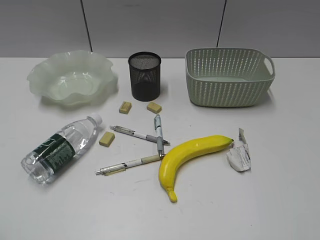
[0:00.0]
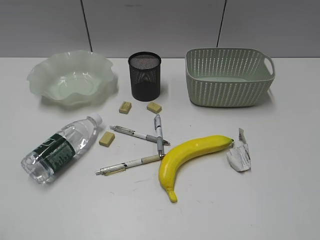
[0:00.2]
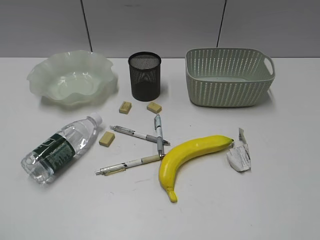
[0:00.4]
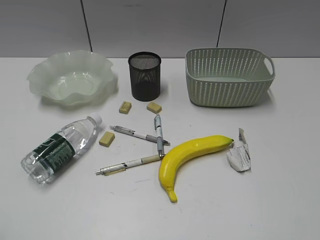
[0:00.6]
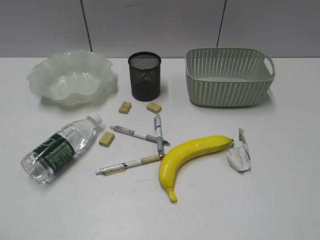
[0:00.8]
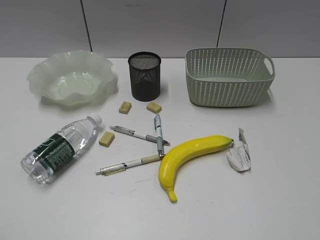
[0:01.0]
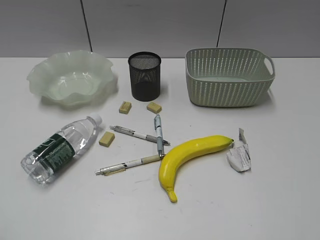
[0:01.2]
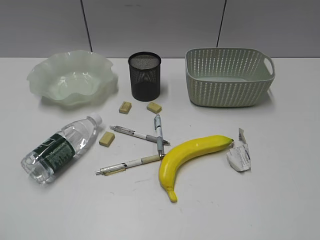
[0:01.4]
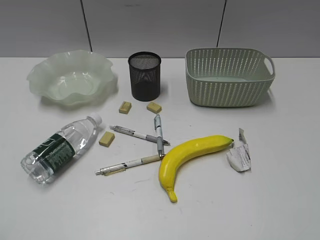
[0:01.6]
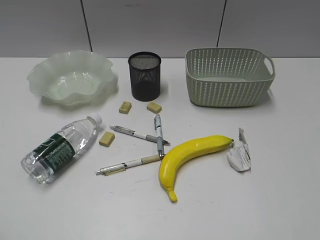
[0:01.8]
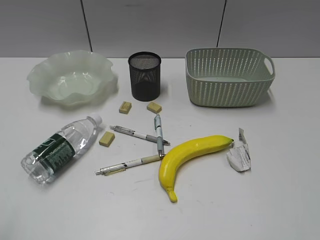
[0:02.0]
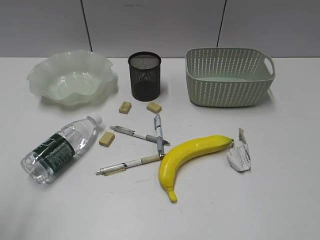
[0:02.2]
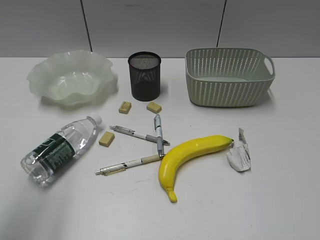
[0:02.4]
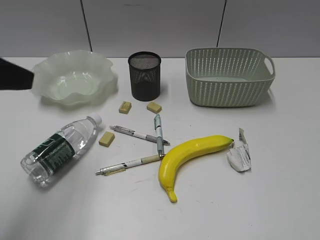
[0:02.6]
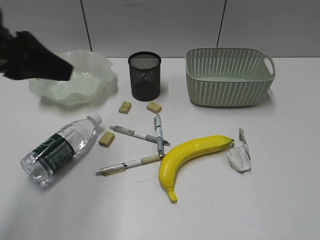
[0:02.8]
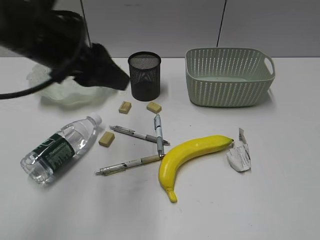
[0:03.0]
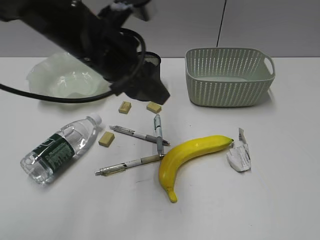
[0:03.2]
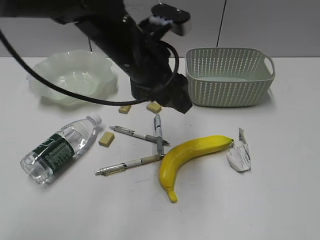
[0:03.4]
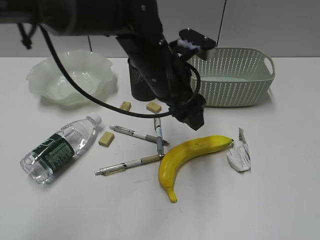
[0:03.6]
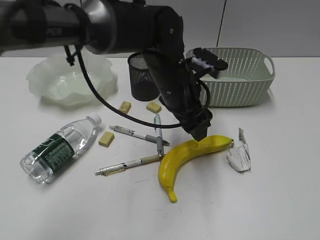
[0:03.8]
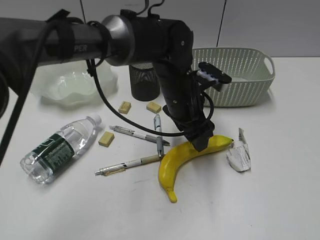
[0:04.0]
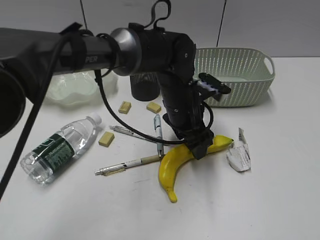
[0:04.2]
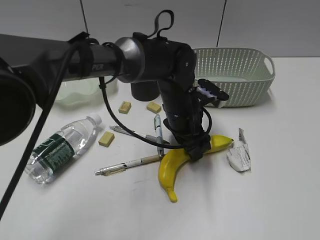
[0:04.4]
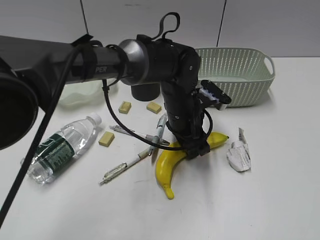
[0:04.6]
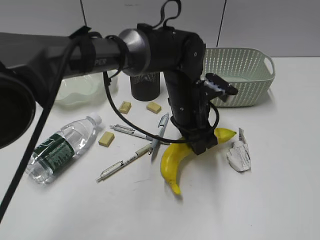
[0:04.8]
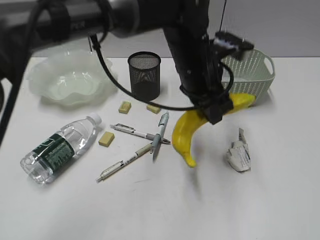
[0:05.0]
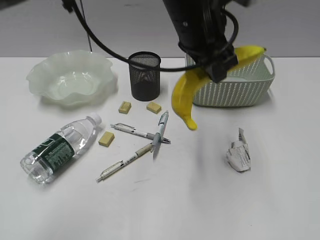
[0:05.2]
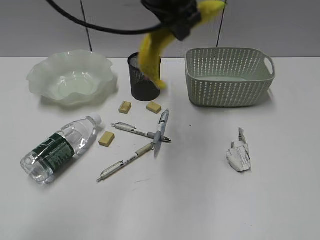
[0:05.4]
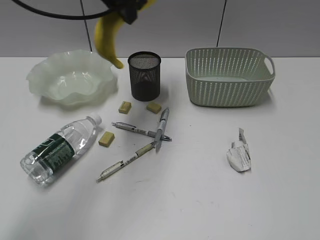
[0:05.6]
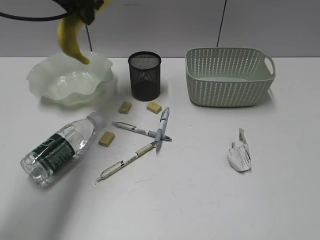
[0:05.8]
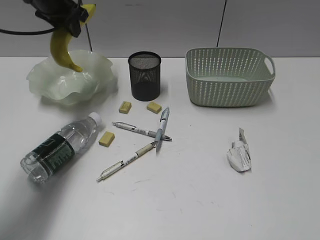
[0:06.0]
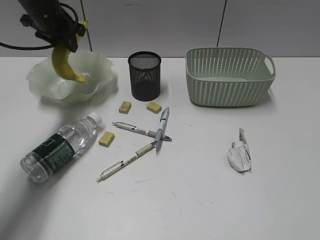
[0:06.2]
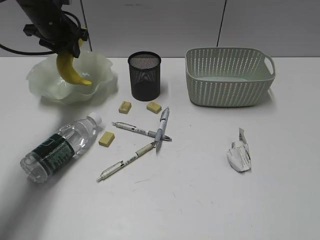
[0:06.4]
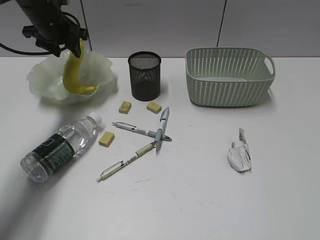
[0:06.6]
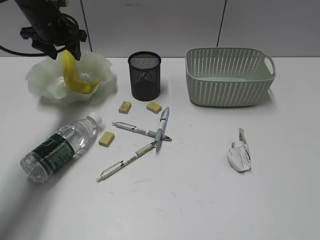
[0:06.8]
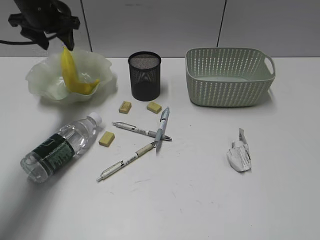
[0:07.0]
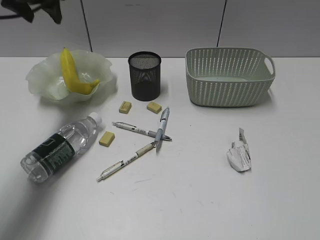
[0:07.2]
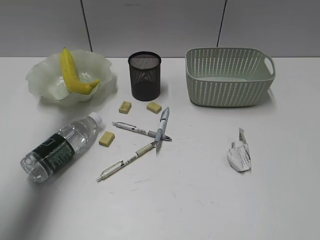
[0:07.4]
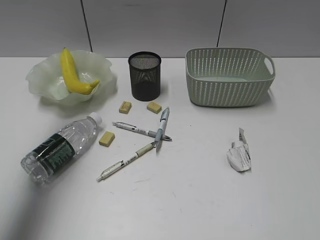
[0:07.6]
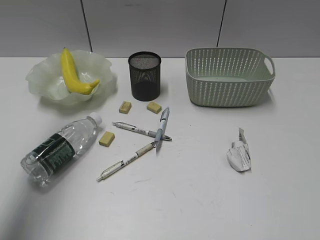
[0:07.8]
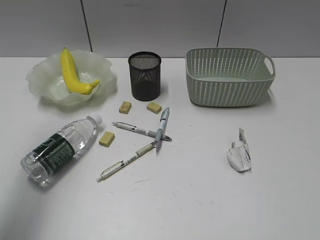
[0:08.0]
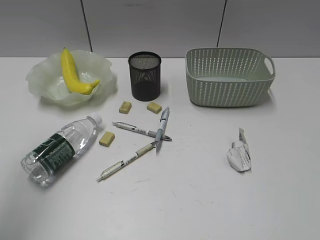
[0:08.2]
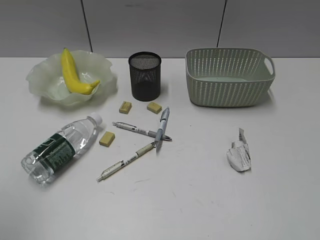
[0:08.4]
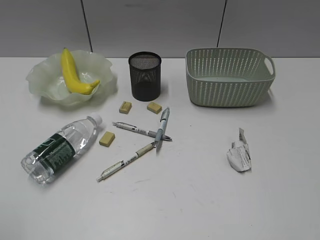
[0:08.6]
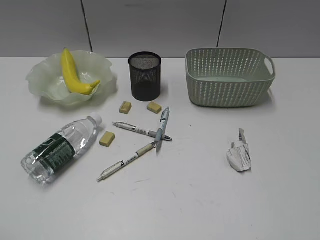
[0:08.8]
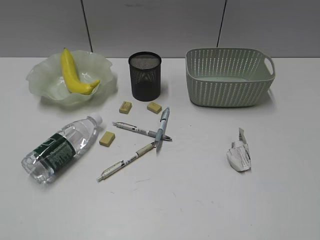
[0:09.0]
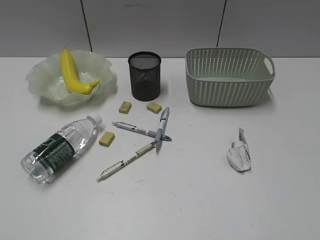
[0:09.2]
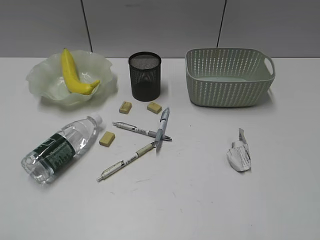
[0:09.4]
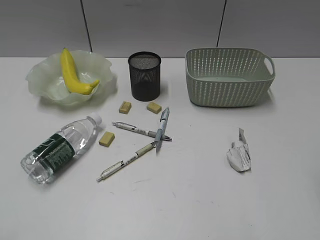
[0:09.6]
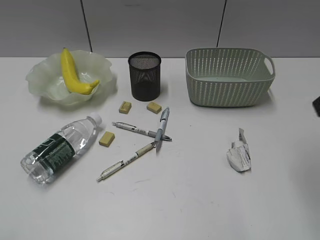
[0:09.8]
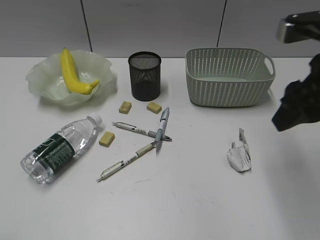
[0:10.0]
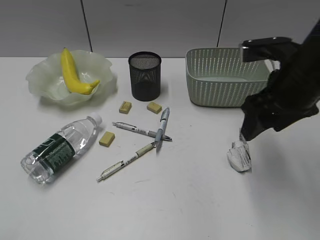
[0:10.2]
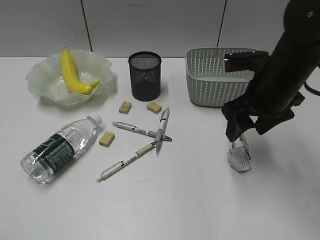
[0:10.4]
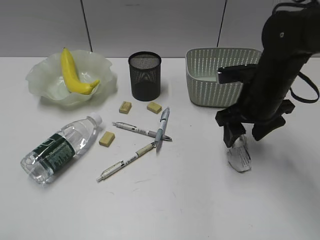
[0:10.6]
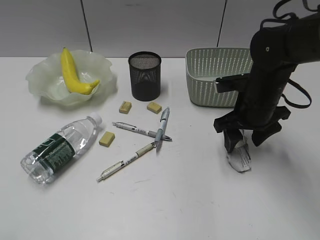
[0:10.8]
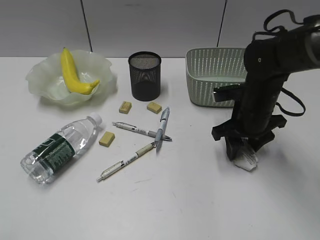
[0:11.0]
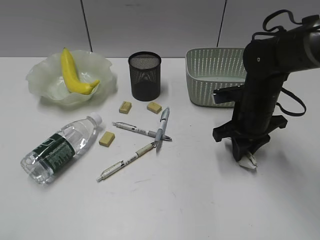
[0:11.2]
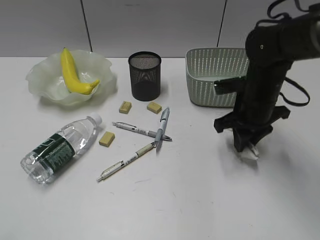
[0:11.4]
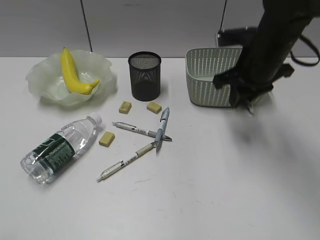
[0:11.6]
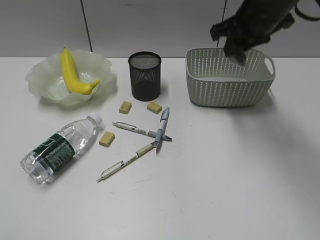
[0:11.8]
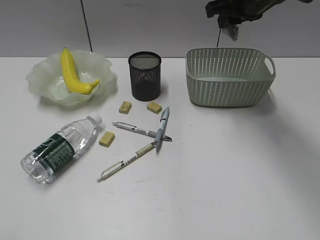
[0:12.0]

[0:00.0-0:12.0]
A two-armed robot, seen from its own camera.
Step, 0:01.8 to 0:04.6: Grasp the banana with left gripper.
Step, 0:04.8 to 0:06.6: Place the banana in the plate with left gripper.
Step, 0:06.8 to 0:11.2: Grasp the waste paper with right gripper.
0:01.6 to 0:03.0: The left gripper moves forward and to the right, some 35 cm, and opens up.
0:03.0 to 0:04.4: The left gripper heads to the right and downward, covering roughly 25 cm.
0:04.4 to 0:06.0: The left gripper heads to the left, upward and forward, covering approximately 35 cm, and closes up.
0:06.0 to 0:07.6: The left gripper shifts some 25 cm upward and backward.
0:07.6 to 0:09.0: The left gripper travels backward and downward by roughly 40 cm.
0:09.0 to 0:10.4: The right gripper heads forward and to the left, covering approximately 35 cm, and opens its fingers.
0:10.4 to 0:12.0: The right gripper moves forward and upward, approximately 15 cm, and closes.

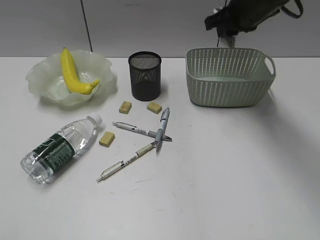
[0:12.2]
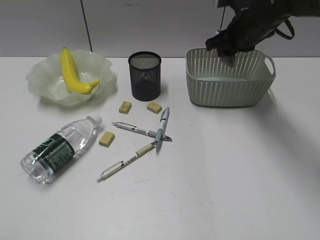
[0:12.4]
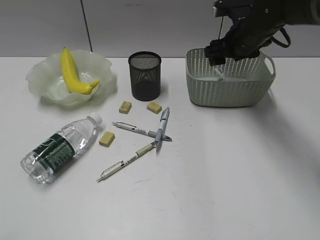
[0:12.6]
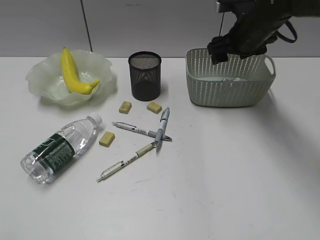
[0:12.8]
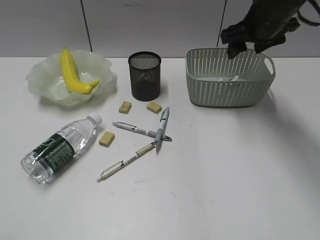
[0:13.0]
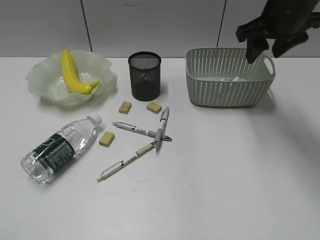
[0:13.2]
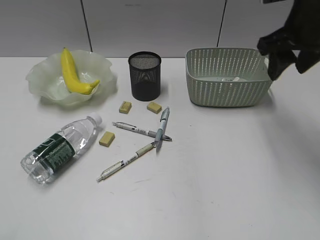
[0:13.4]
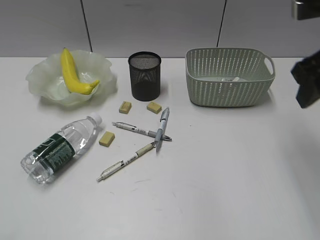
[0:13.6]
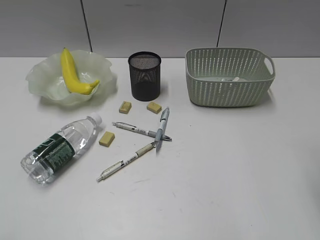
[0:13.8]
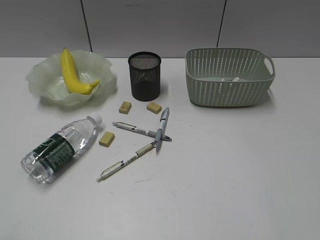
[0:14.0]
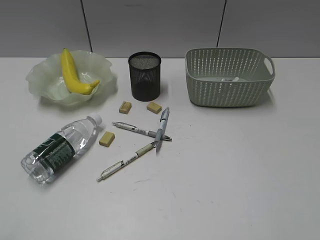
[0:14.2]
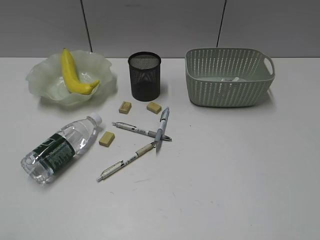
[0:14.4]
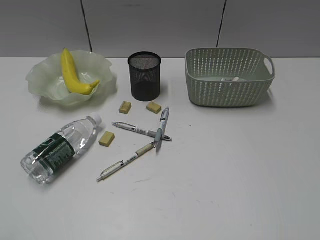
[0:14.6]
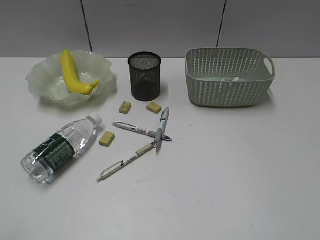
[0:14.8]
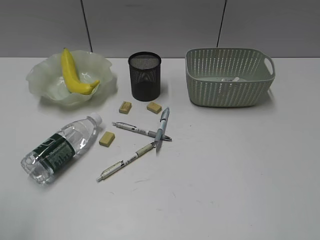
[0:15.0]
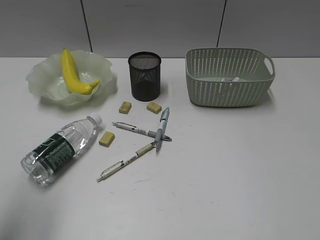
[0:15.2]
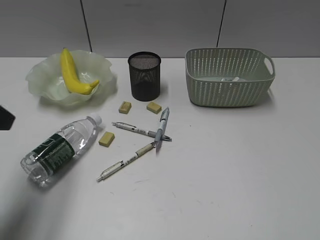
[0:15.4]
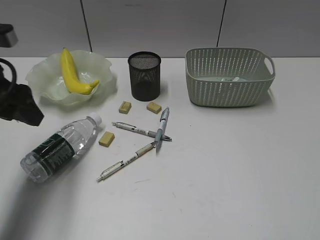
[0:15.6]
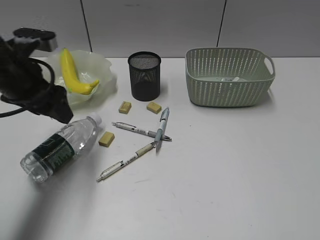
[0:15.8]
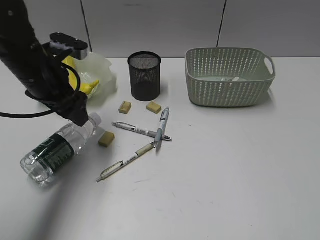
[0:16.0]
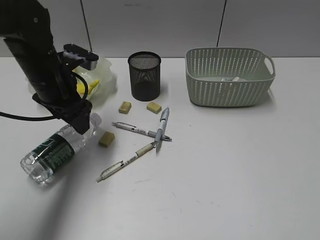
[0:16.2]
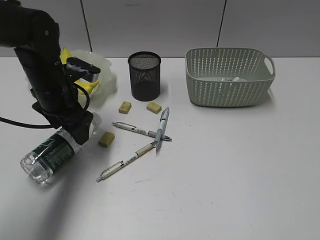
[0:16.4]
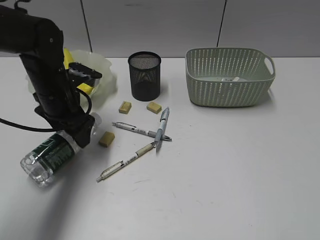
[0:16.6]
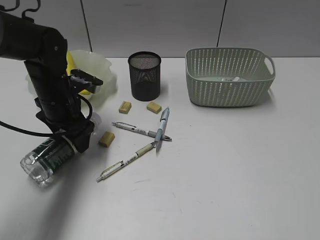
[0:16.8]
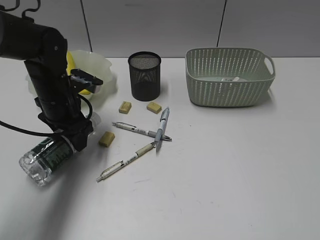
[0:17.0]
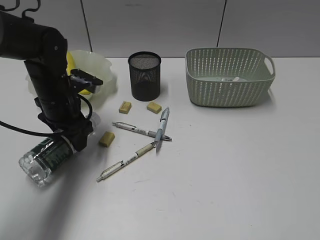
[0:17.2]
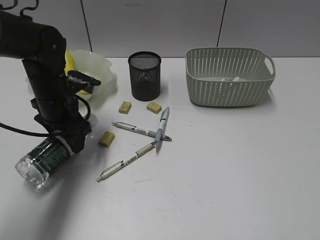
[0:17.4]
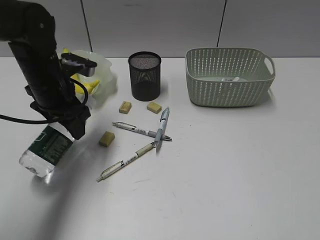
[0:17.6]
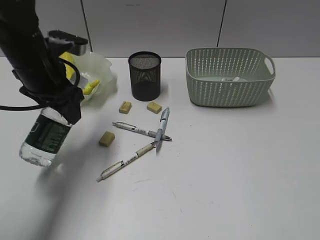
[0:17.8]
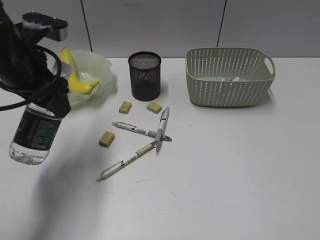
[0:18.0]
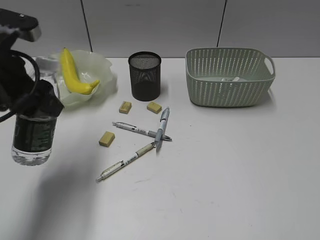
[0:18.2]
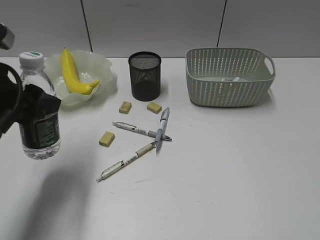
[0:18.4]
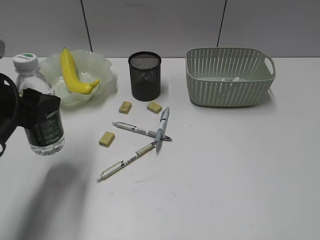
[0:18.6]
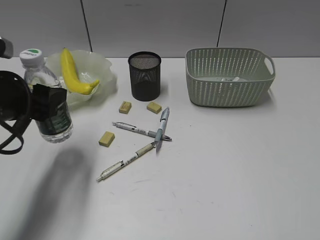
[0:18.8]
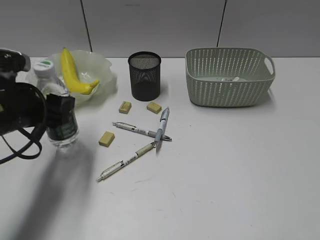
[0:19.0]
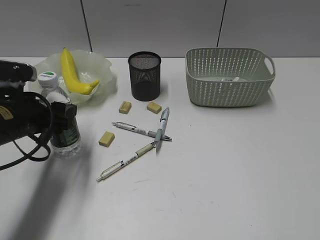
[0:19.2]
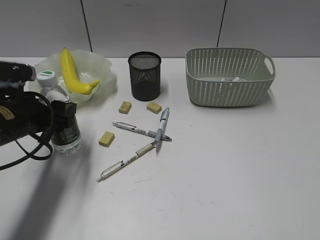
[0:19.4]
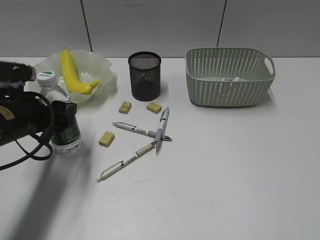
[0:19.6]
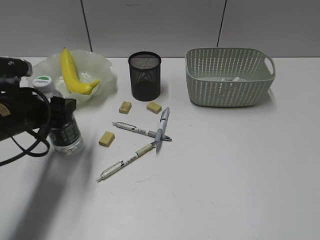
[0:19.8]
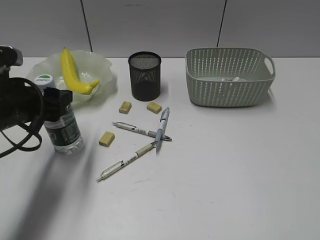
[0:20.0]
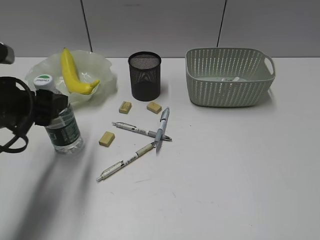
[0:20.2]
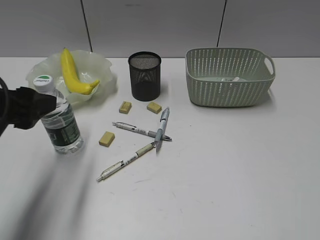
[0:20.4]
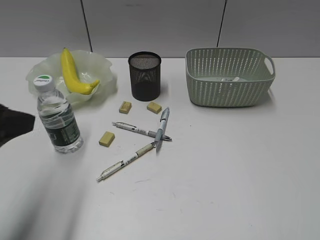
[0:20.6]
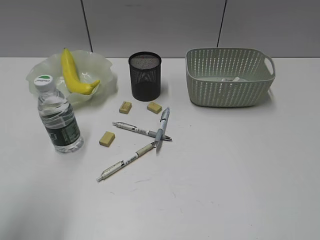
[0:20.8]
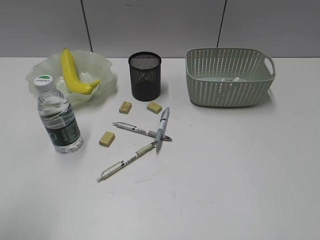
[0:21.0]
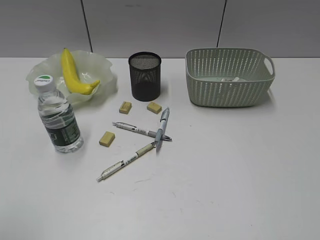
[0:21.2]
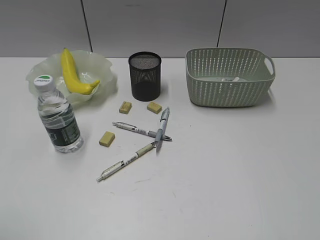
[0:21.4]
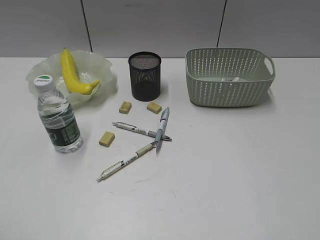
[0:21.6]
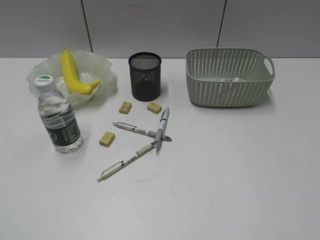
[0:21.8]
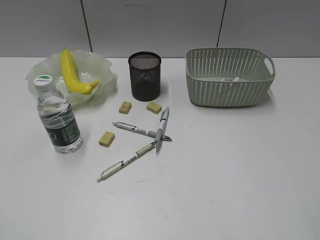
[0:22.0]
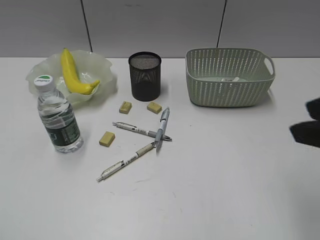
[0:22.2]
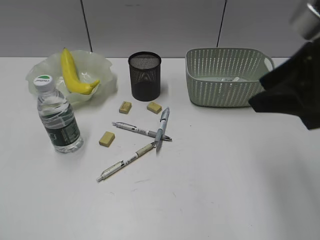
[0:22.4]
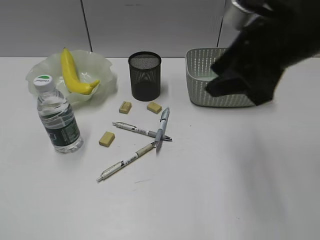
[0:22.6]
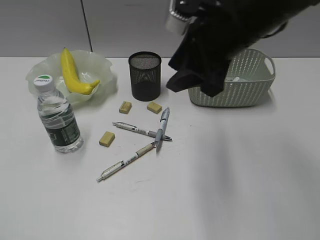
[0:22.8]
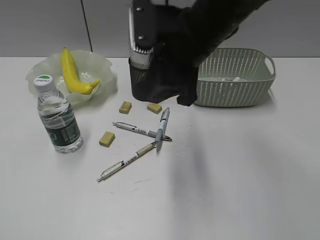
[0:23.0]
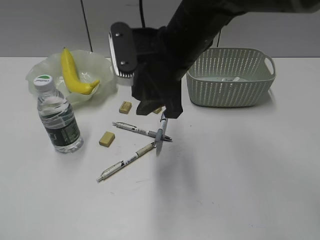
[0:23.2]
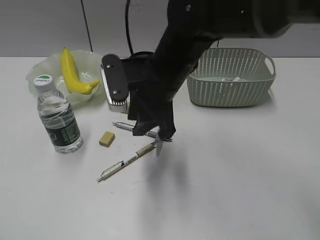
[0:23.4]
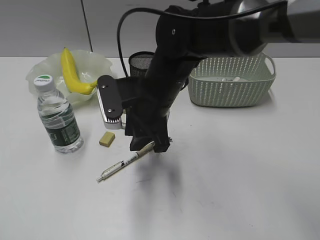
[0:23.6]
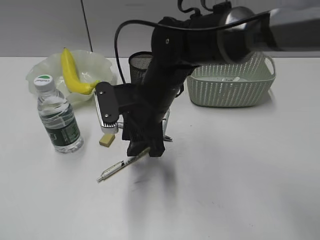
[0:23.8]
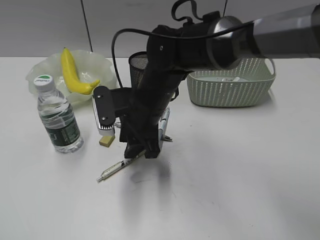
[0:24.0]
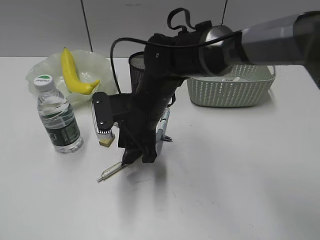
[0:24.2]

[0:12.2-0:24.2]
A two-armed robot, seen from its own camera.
Step, 0:12.8 to 0:17.2: Grasp the bottle with left gripper.
Step, 0:17.4 to 0:20.4: Stand the bottle with left gripper.
0:12.2 to 0:13.8: The right gripper heads backward, covering roughly 25 cm, and opens.
0:13.8 to 0:15.2: The left gripper shifts approximately 10 cm forward.
0:15.2 to 0:16.6: The left gripper moves forward, downward and to the right, roughly 30 cm.
0:16.6 to 0:18.2: The left gripper travels upward and backward by about 15 cm.
0:18.2 to 0:19.8: The left gripper goes some 10 cm downward.
0:19.8 to 0:21.2: The left gripper travels backward and upward by about 25 cm.
0:21.2 to 0:22.6: The right gripper moves forward and to the left, approximately 30 cm.
0:22.6 to 0:24.2: The right gripper shifts approximately 25 cm to the left and downward.
